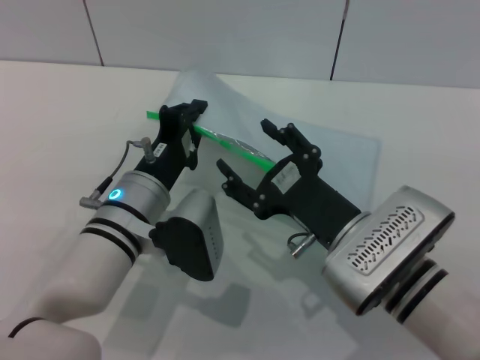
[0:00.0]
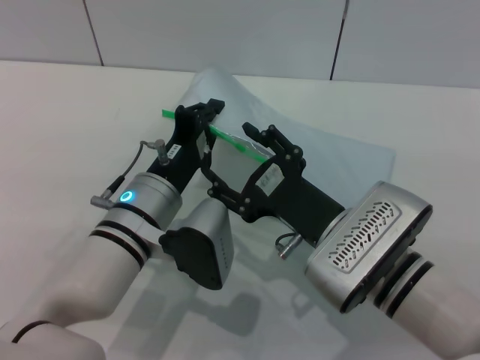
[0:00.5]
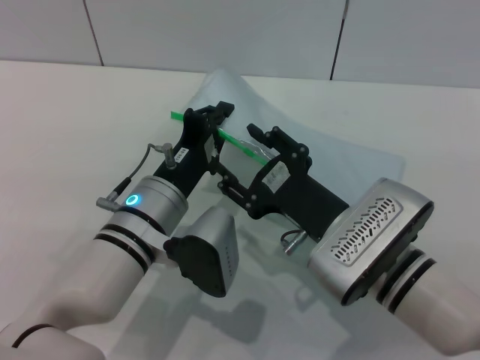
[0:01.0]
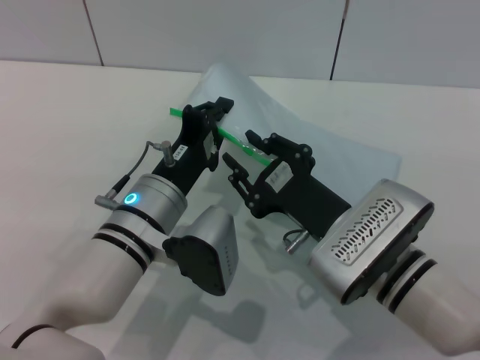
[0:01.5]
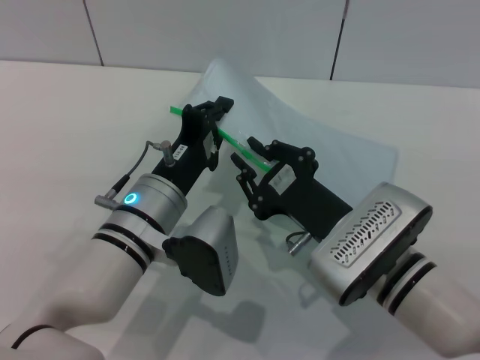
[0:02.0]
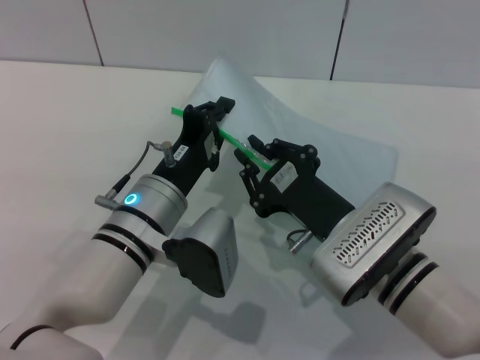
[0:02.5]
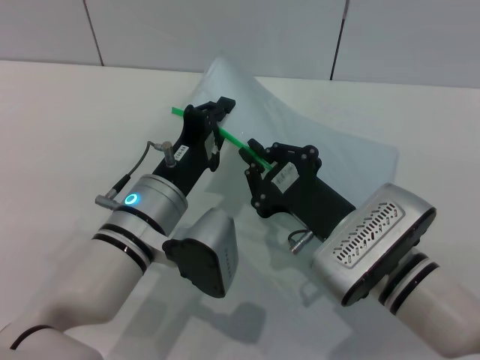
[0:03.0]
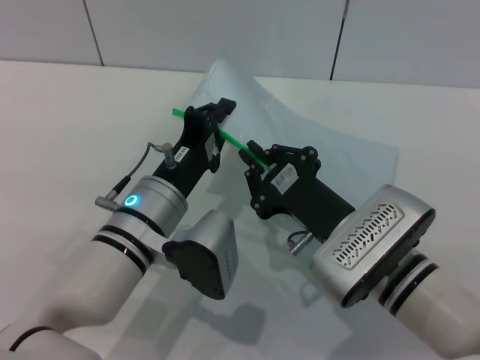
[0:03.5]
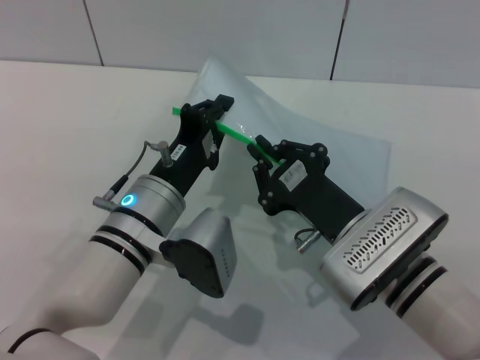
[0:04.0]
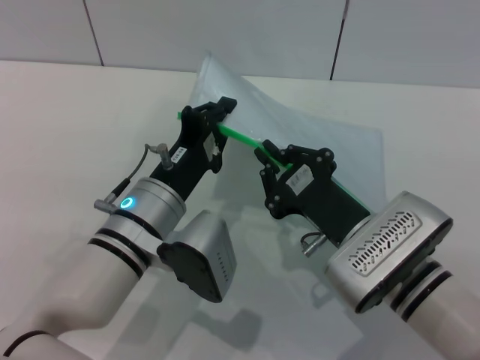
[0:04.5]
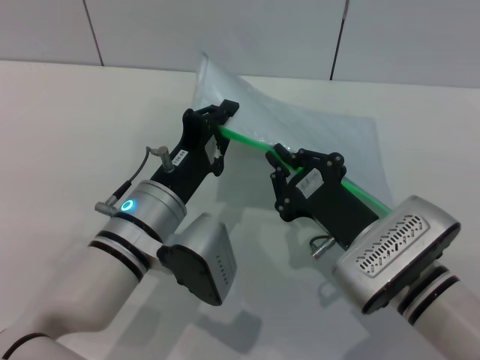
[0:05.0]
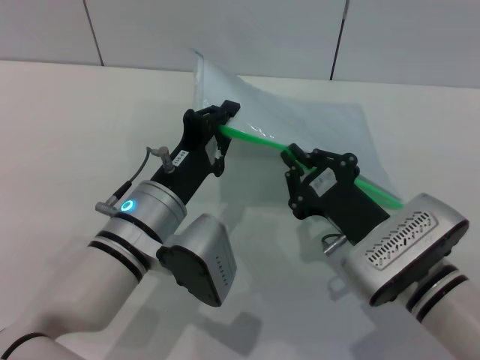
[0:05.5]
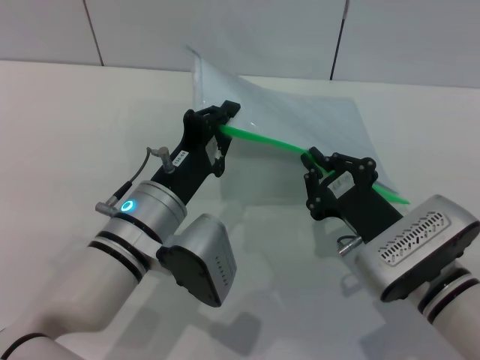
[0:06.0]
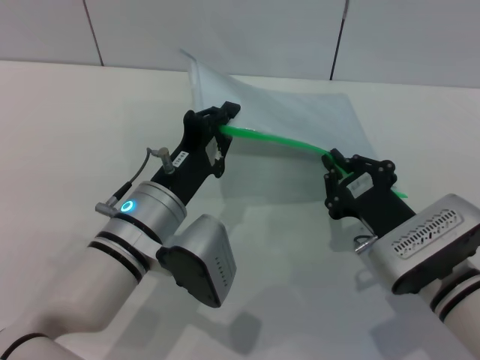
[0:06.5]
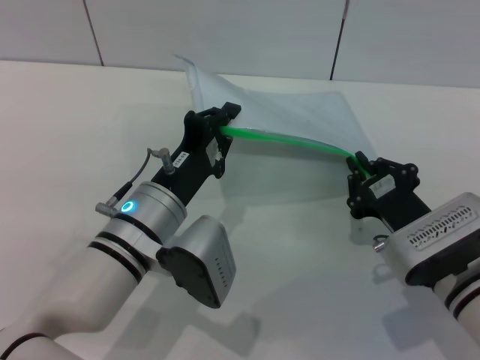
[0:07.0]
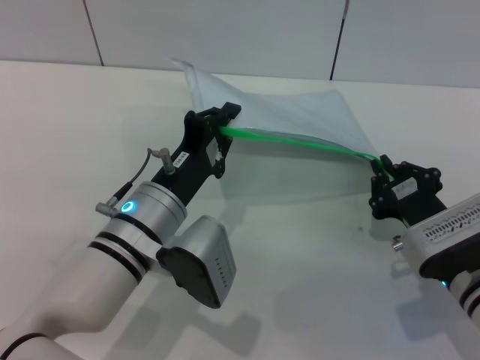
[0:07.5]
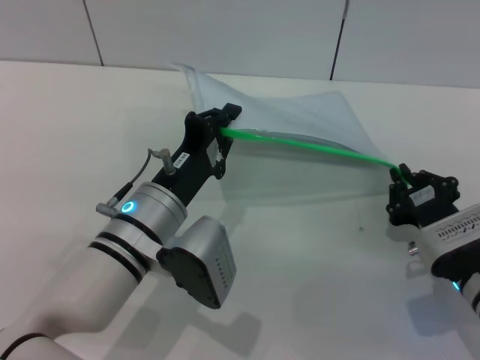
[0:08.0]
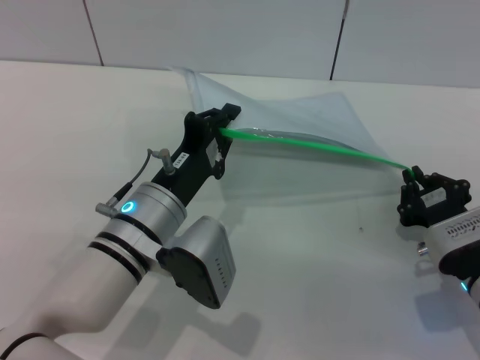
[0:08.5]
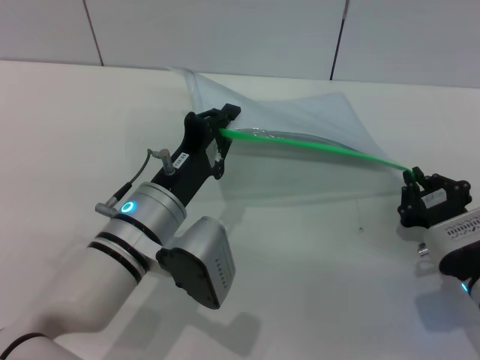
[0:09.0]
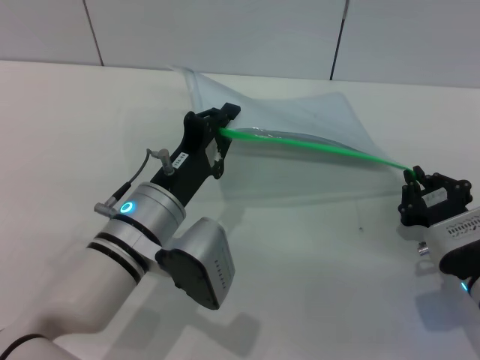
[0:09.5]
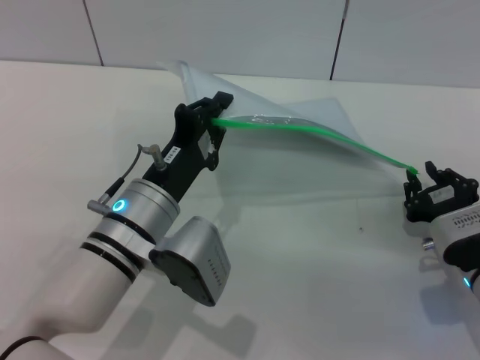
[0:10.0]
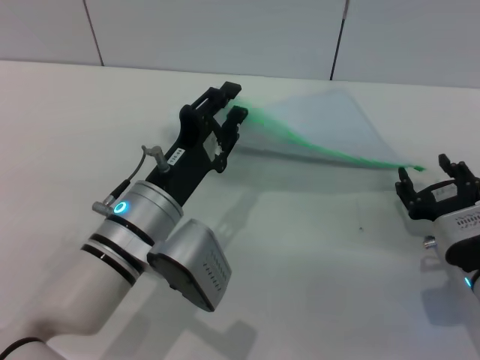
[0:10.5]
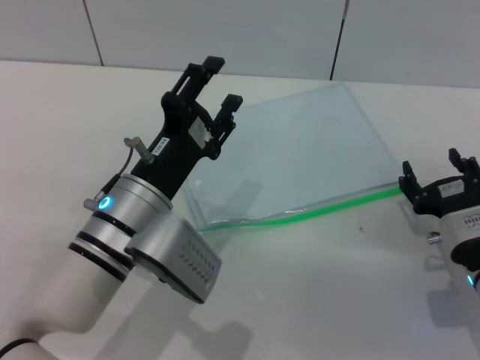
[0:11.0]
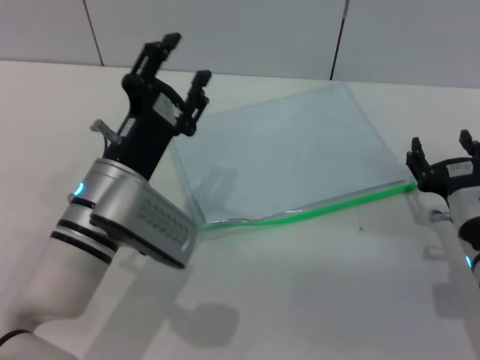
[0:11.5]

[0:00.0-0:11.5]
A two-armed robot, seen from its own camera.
Step, 0:00.0 to 0:10.0: Pulling up the zipper on the transparent plastic bag with the right gripper to close it.
0:00.0 to 0:02.0: The right gripper closes.
0:02.0 to 0:04.0: The right gripper closes its fingers.
0:04.0 to 0:06.0: The grippers make only small movements.
0:06.0 to 0:07.5: The right gripper moves to the right, some 5 cm.
0:07.5 to 0:09.5: The grippers move only a little.
0:09.5 to 0:11.5: The right gripper opens its fingers, while the left gripper opens its fingers.

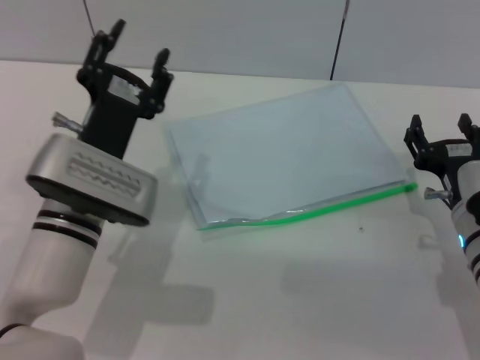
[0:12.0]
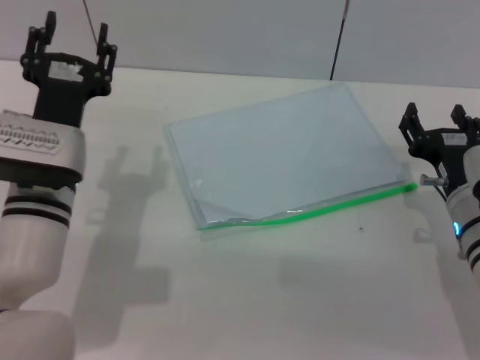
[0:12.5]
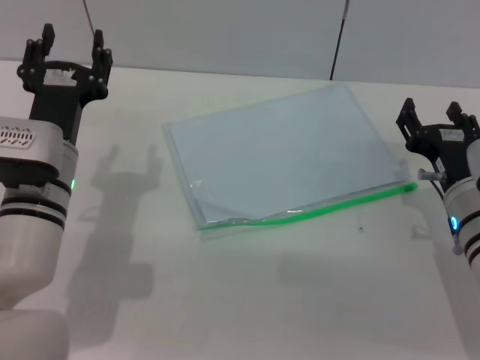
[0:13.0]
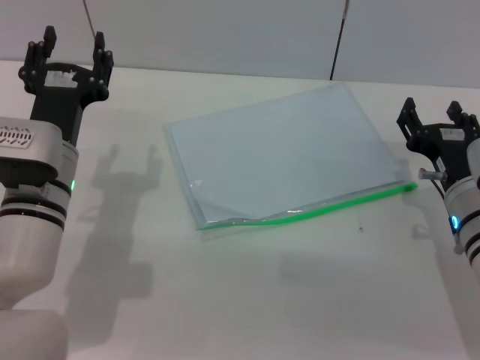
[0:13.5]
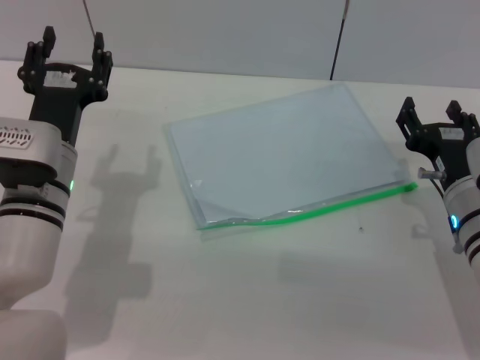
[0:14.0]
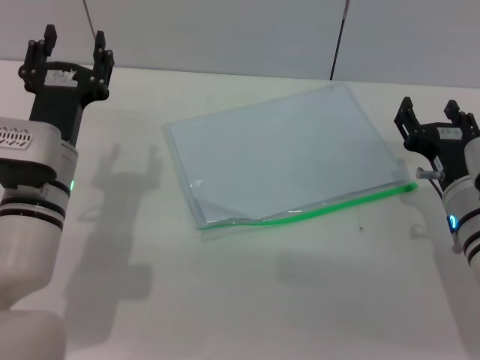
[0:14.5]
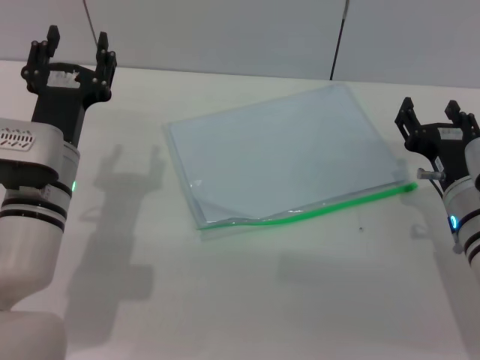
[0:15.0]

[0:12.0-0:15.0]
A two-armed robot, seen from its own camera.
0:13.5 to 0:15.0: Both grippers stay about where they are.

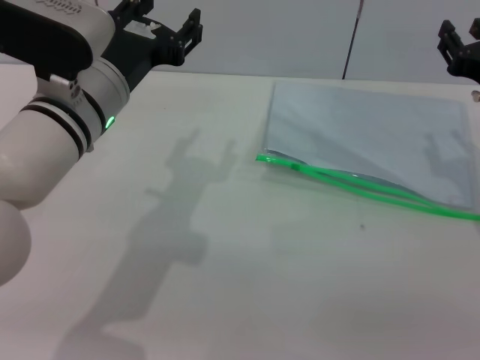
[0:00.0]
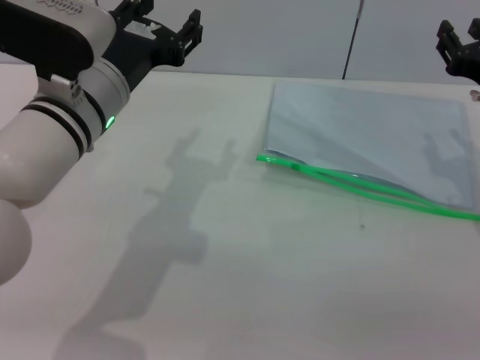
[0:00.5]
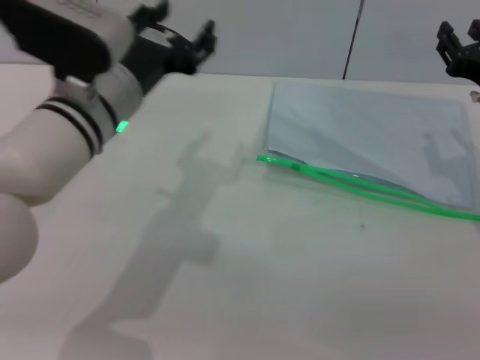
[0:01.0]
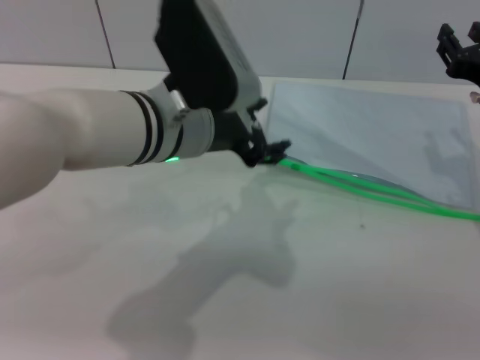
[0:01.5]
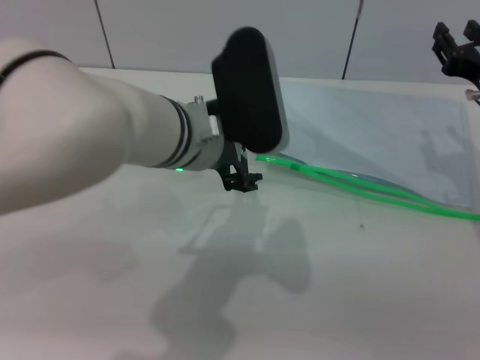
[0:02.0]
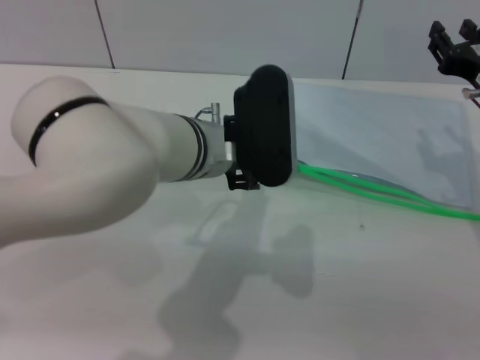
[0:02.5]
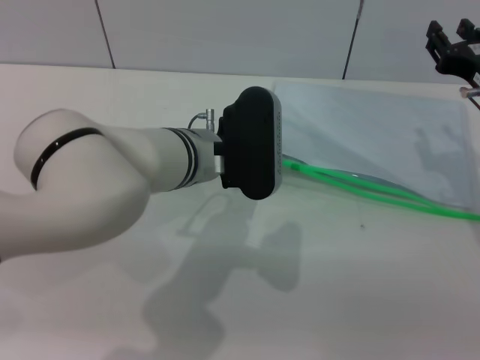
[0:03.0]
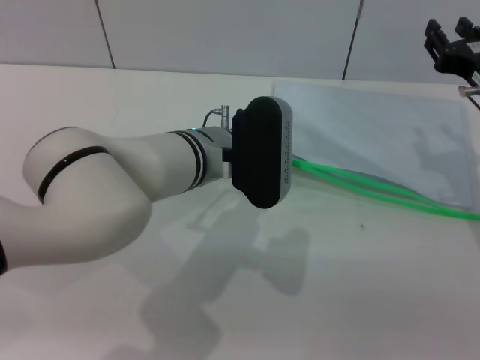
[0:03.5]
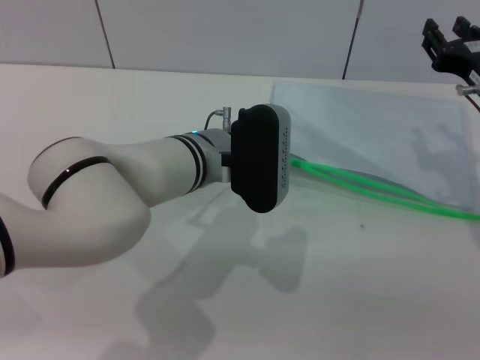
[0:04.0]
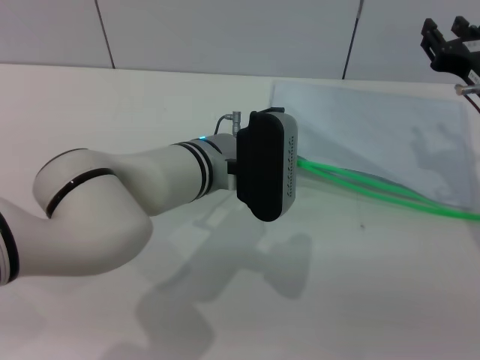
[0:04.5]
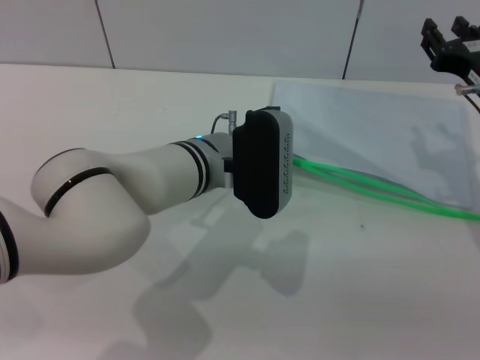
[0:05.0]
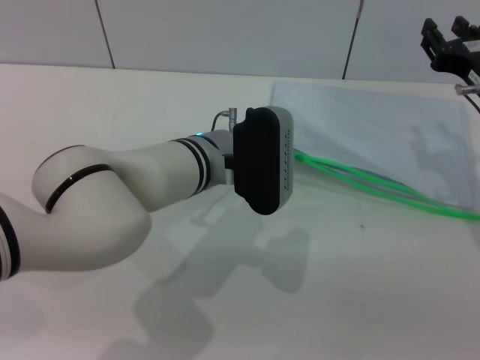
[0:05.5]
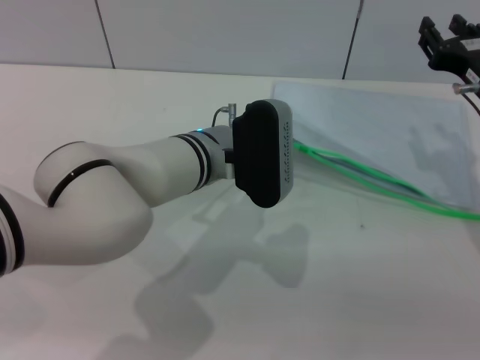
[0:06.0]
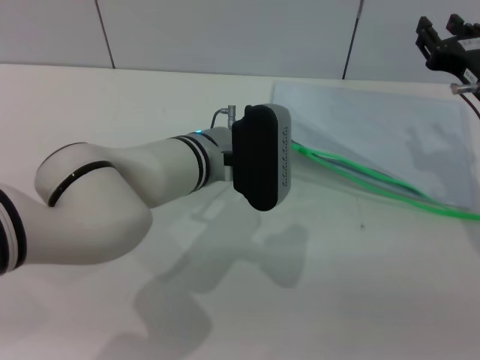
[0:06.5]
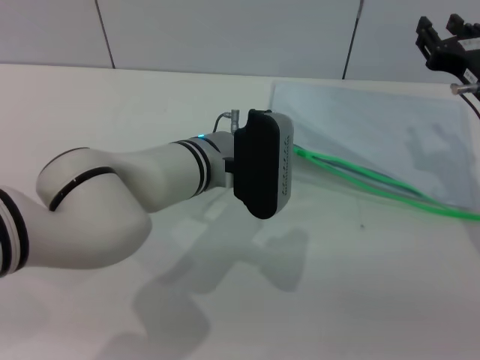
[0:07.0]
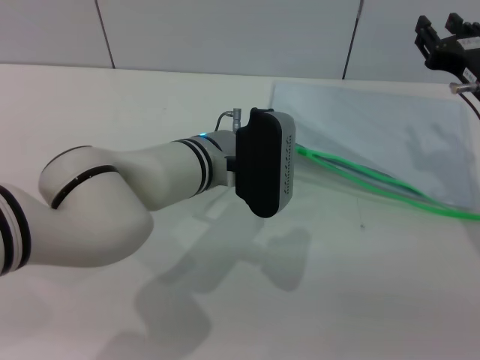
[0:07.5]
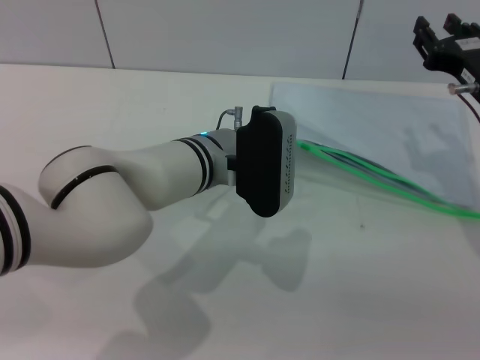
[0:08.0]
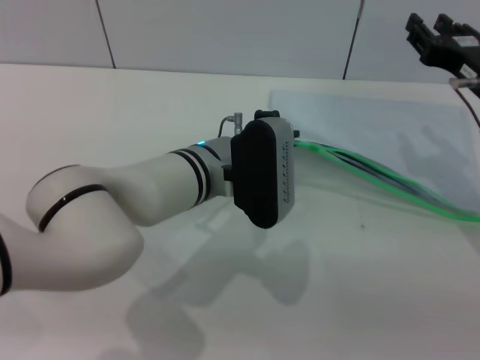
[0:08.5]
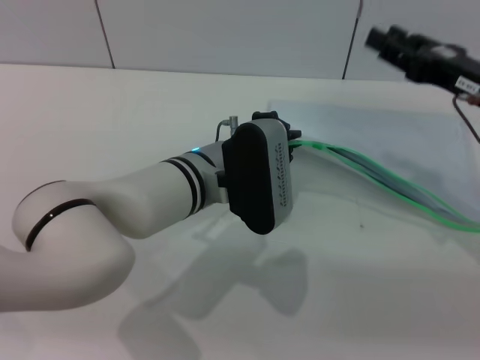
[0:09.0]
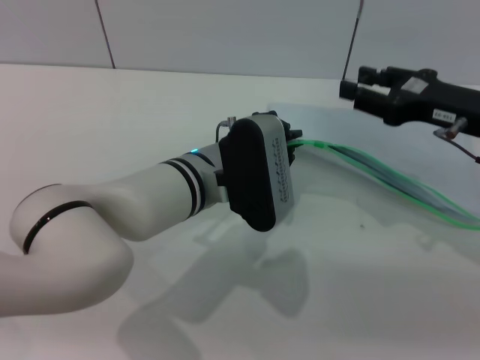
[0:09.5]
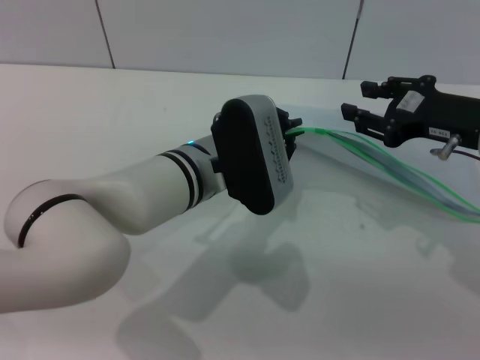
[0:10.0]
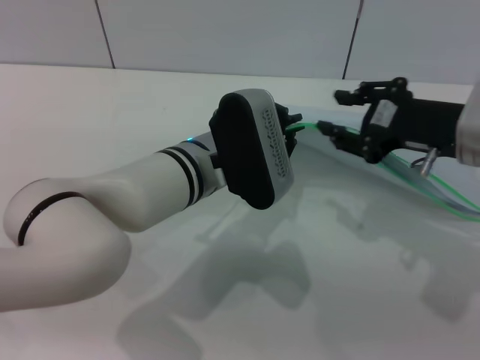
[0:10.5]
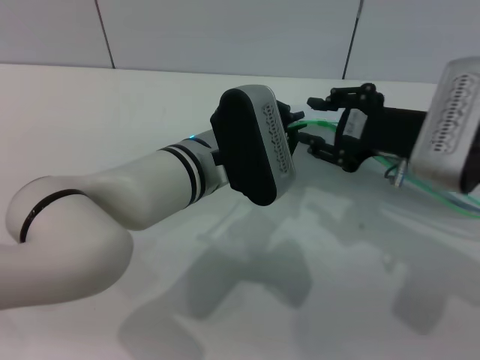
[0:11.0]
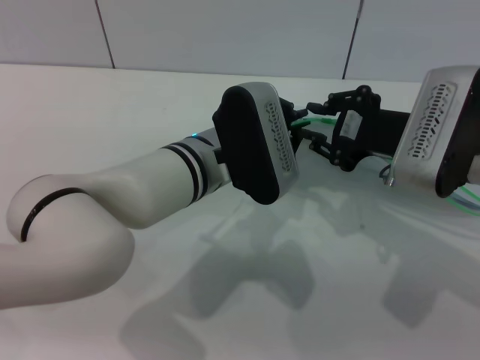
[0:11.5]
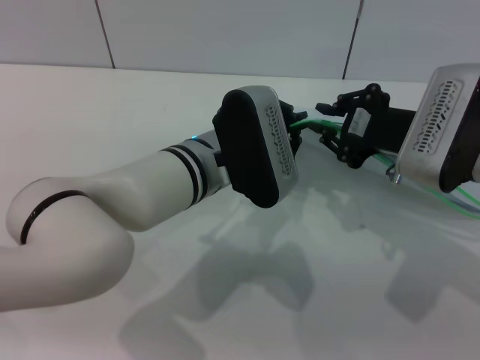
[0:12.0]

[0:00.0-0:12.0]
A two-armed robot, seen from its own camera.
Step, 0:00.0 to 0:08.5: Pick up the transparent plastic bag with the right gripper.
0:00.0 to 0:02.0: The left gripper moves to the right, roughly 10 cm.
0:02.0 to 0:04.0: The left gripper moves downward, about 5 cm.
0:04.0 to 0:06.0: The left gripper closes.
0:06.0 to 0:08.0: The left gripper closes its fingers.
0:10.0 to 0:12.0: The right gripper moves to the left, roughly 5 cm, and closes its fingers.
